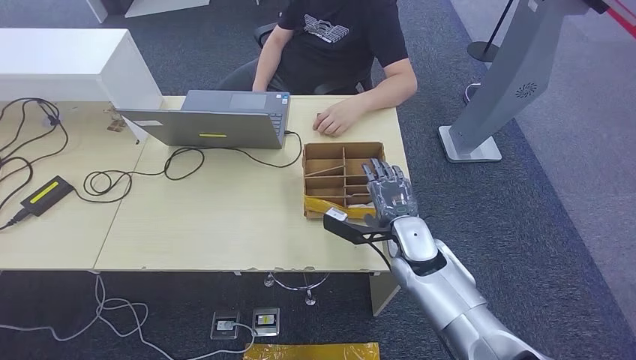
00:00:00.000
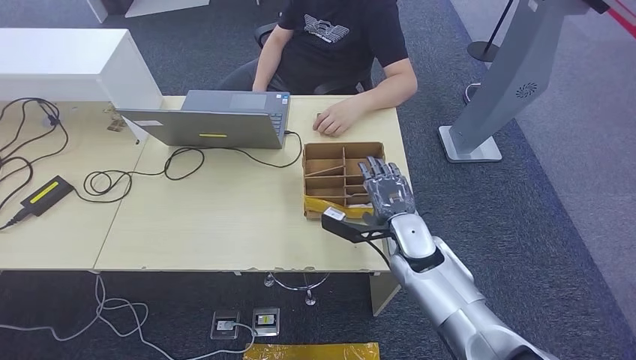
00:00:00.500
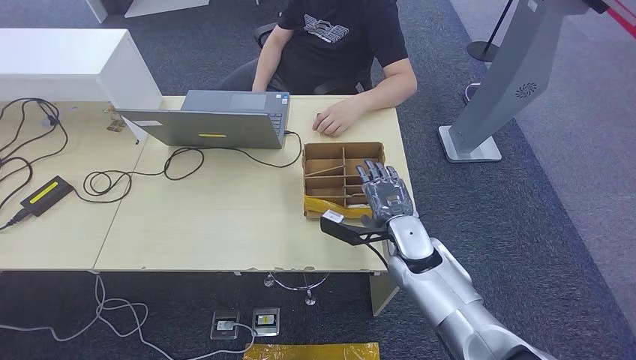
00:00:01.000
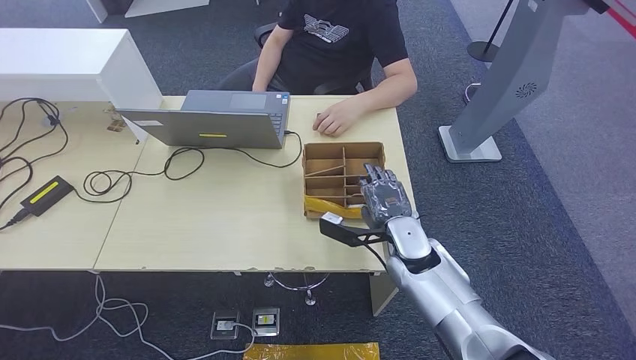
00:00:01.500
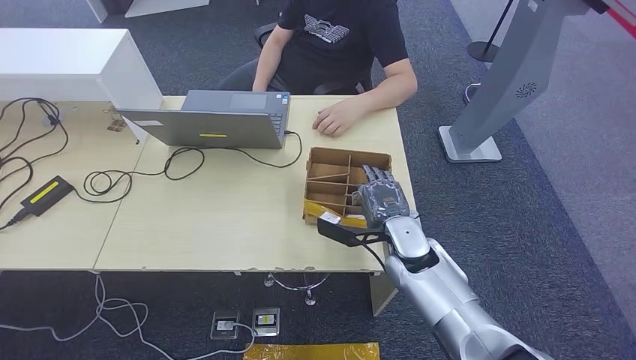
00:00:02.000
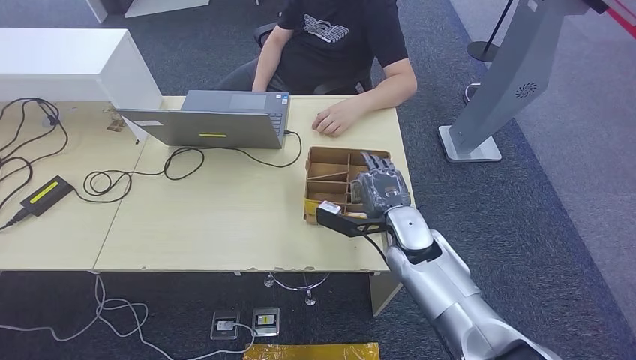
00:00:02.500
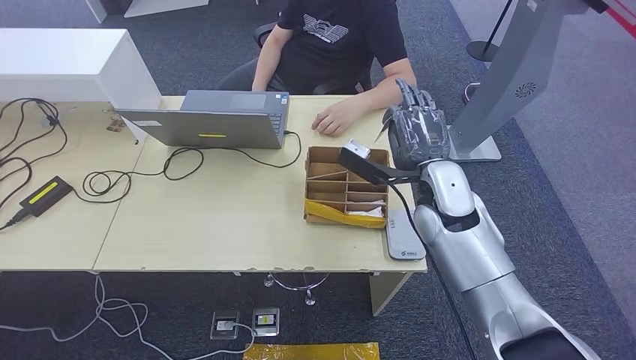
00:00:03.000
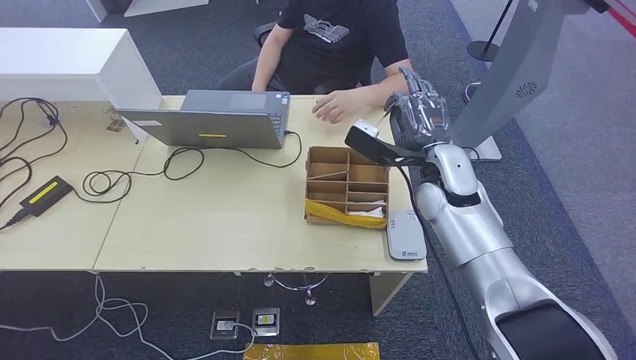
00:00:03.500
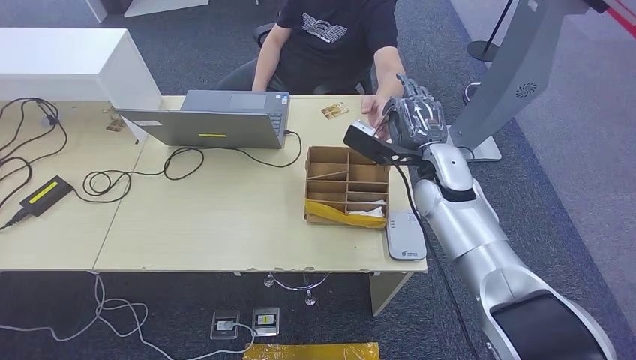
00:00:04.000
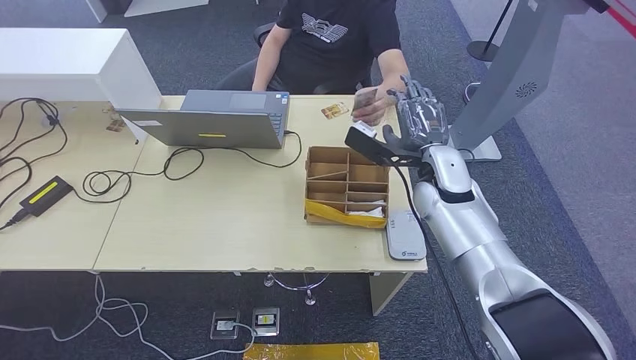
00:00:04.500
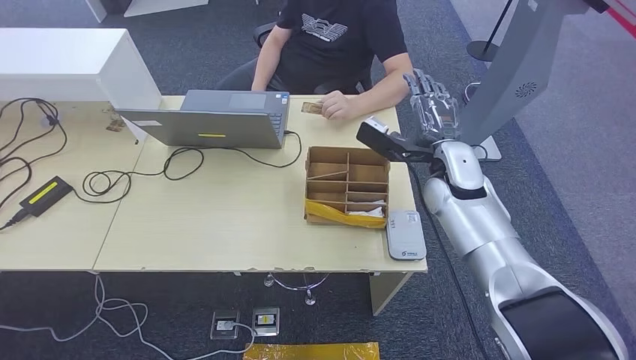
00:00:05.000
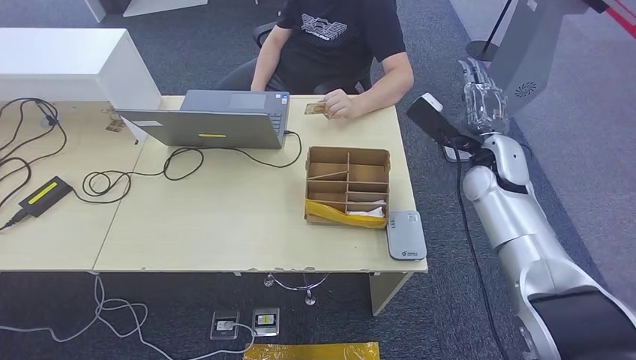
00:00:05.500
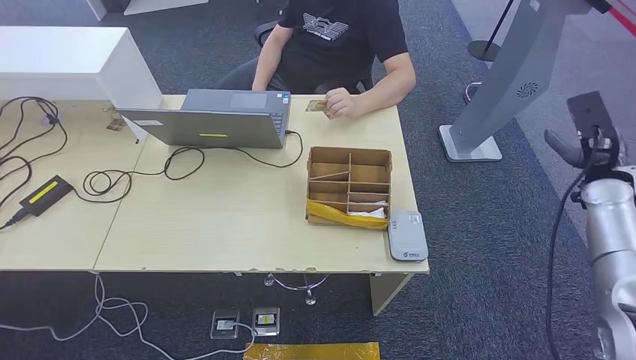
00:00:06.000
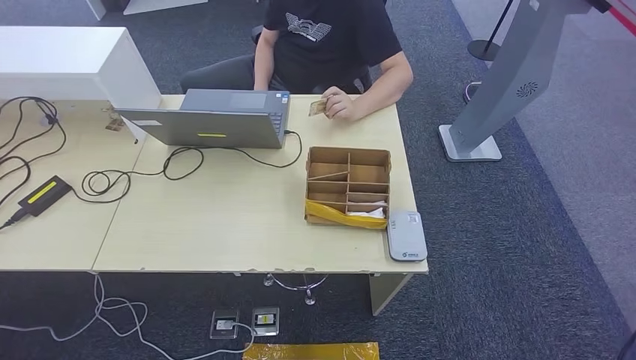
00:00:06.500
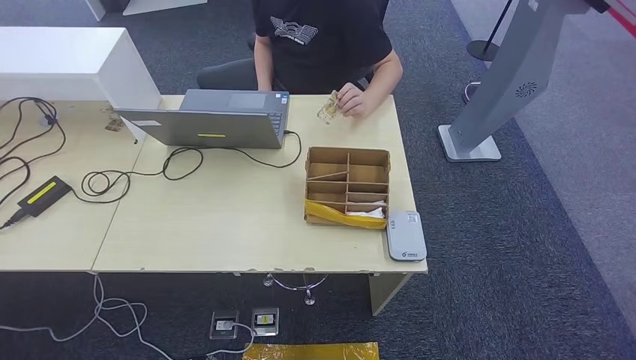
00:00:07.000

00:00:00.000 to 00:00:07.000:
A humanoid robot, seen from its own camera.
Step, 00:00:00.000 to 00:00:02.500: Pick up the room key from the key card box.
Step, 00:00:04.000 to 00:00:07.000: Hand the room key to the person.
00:00:00.000 to 00:00:02.000: The hands stay close to where they were, moving slightly.
00:00:02.000 to 00:00:03.500: The right hand goes some 15 cm upward and forward.
00:00:03.500 to 00:00:05.000: There are only small adjustments of the hands.
00:00:05.000 to 00:00:07.000: The left hand moves to the right, roughly 10 cm, while the right hand goes about 50 cm backward, to the right and downward.
